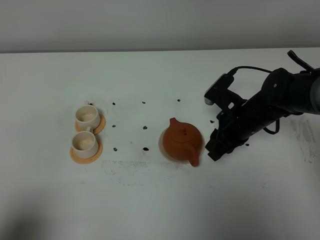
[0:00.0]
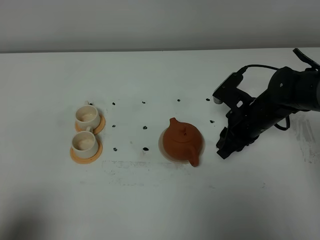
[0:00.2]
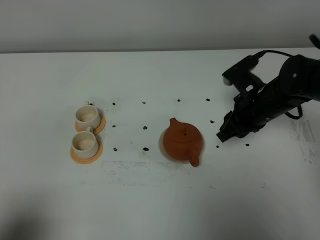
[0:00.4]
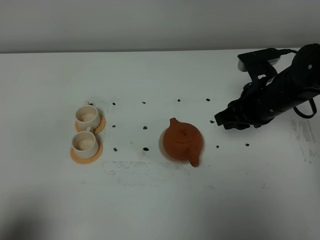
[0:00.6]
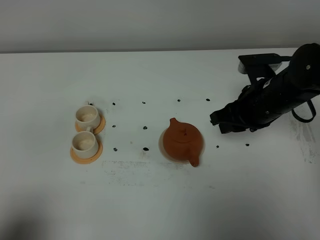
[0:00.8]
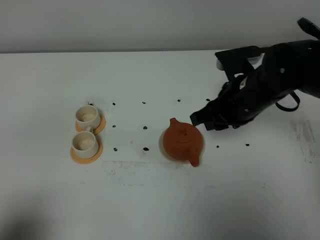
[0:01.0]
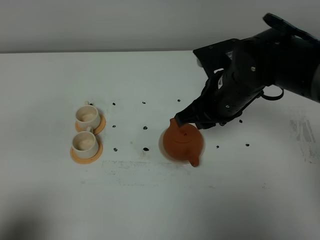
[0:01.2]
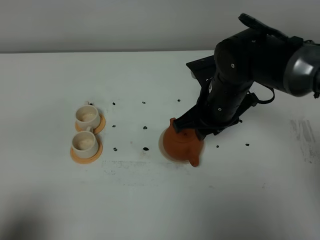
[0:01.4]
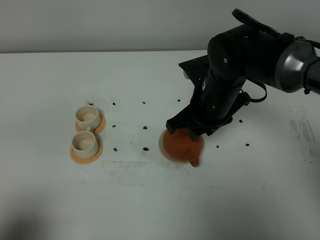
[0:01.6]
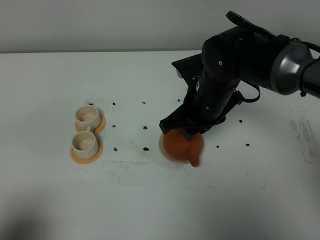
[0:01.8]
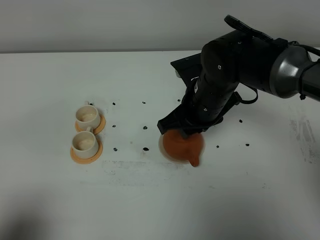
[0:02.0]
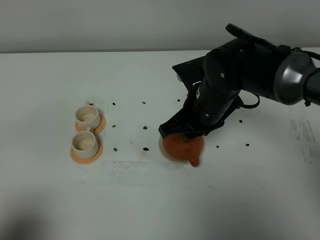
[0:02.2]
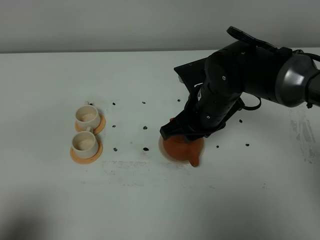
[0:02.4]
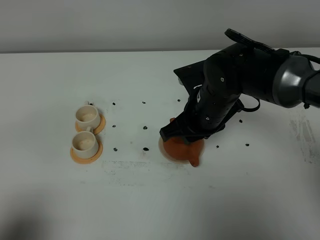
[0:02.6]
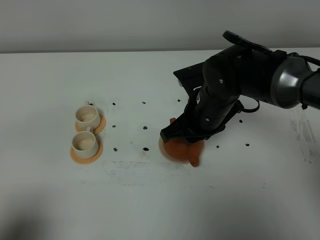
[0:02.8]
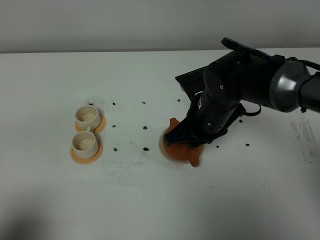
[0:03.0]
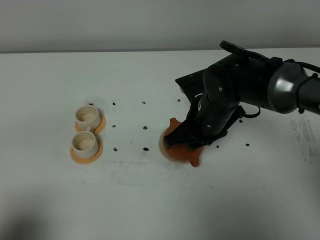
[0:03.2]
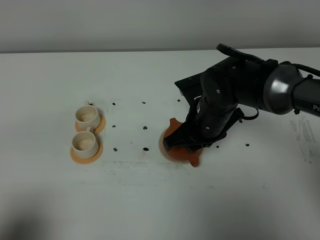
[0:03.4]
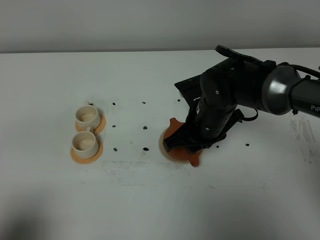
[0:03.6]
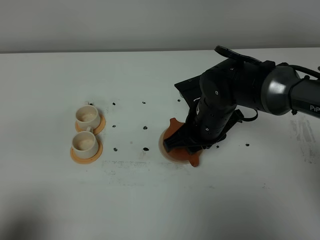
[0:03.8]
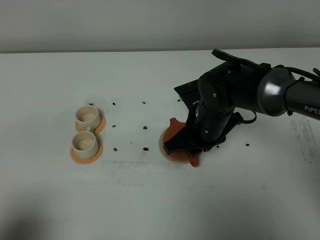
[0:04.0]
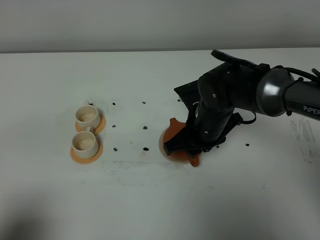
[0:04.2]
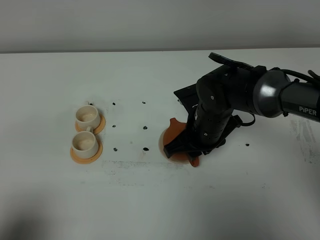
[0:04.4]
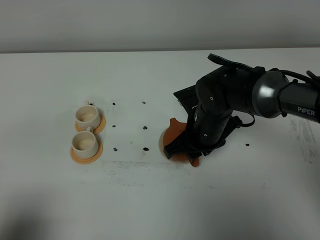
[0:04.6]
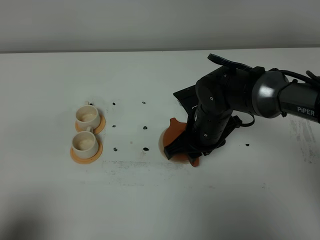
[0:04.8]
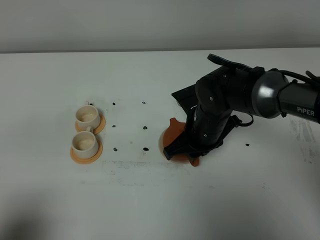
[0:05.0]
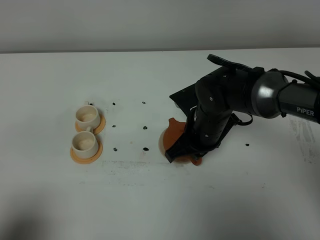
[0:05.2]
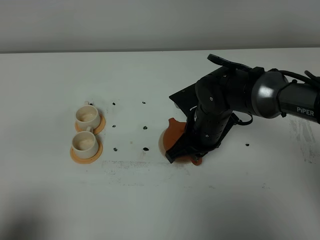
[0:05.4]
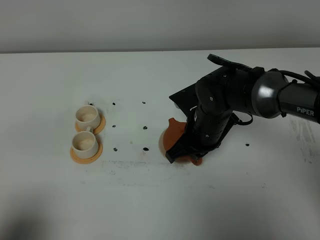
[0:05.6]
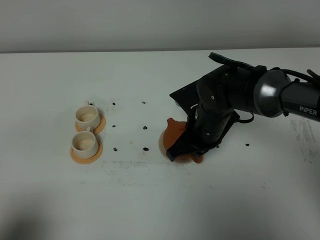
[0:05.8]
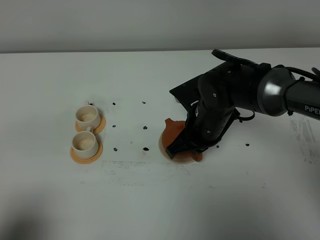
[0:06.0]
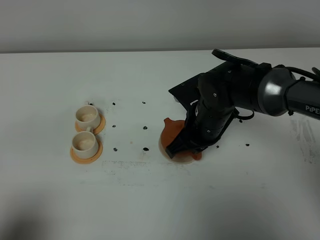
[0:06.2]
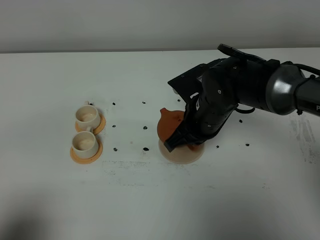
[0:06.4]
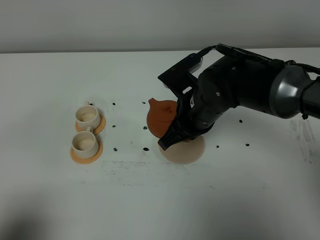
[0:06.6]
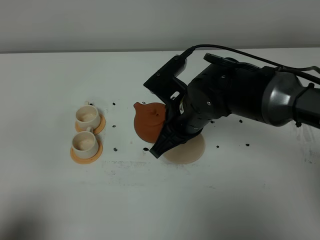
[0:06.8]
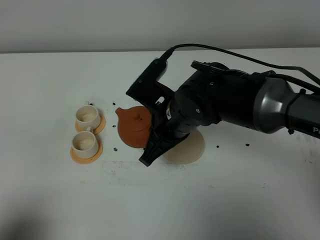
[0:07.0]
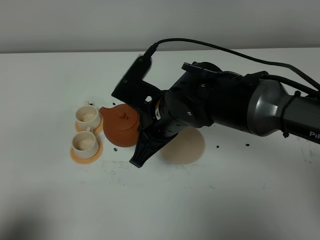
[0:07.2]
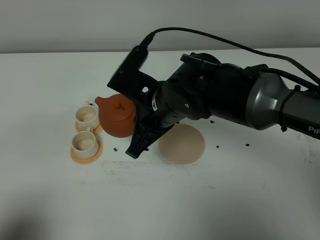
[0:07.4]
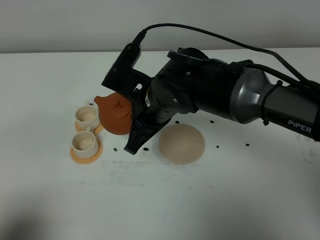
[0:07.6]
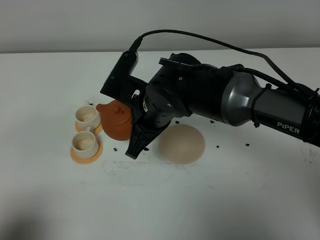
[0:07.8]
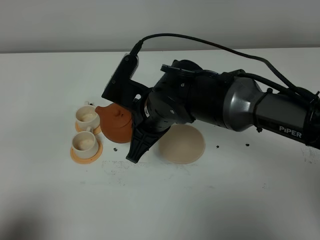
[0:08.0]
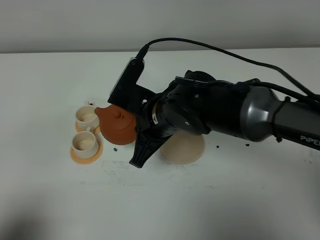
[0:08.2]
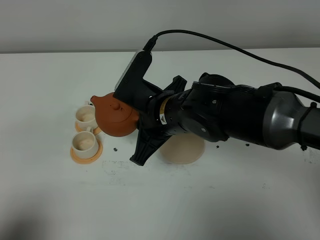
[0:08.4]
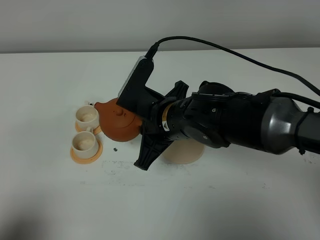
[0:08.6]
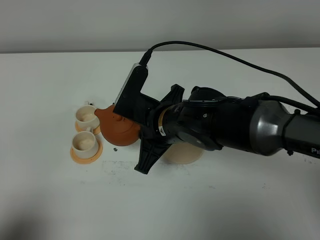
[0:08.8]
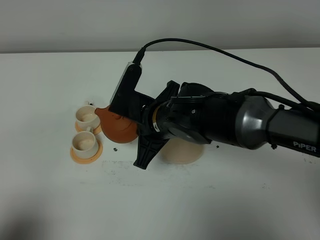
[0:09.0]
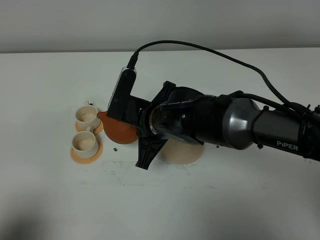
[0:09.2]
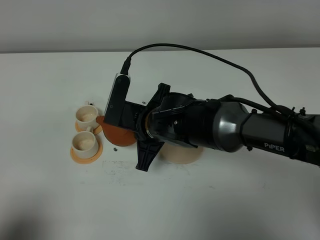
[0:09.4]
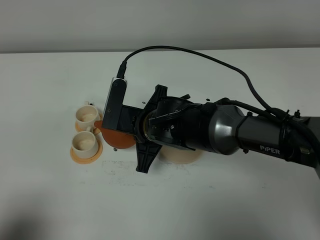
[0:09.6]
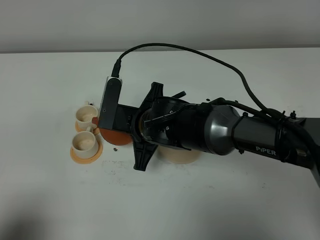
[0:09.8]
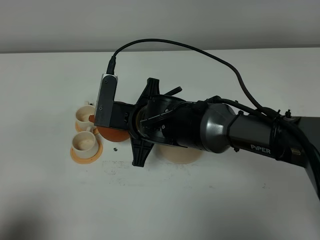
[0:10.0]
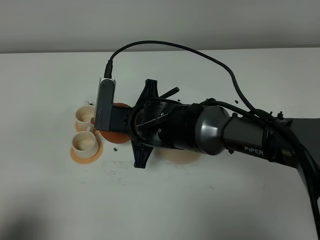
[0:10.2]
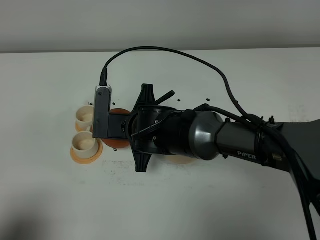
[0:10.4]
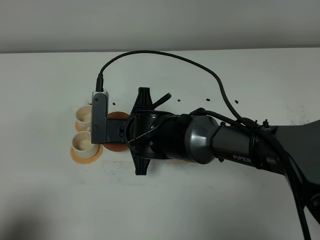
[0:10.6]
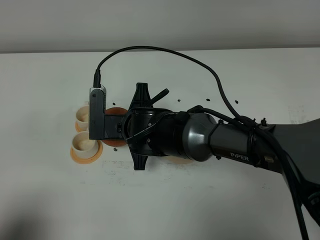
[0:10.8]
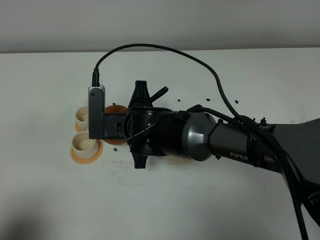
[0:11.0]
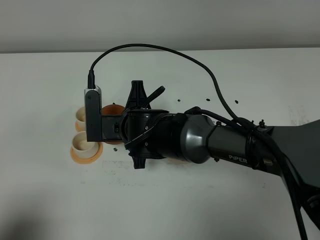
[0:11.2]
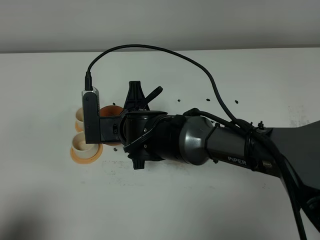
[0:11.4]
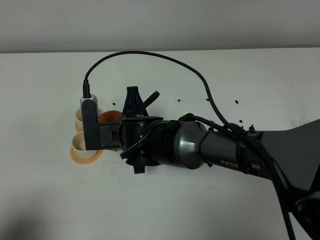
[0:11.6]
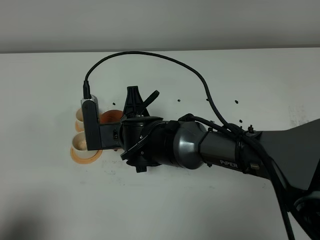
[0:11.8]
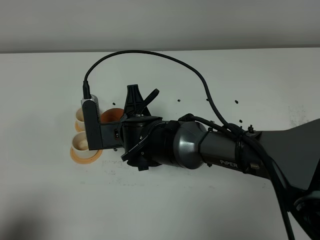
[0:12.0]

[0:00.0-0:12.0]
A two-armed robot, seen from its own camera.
Task of the whole recording: grasp the brown teapot and pour the tea into the two white teacups one by one, put the brown teapot back in its original place.
Step, 0:00.0 to 0:06.2: Pick up the teapot with the right gripper.
0:00.0 to 0:01.6: The right gripper shifts roughly 10 cm upward and to the left.
0:01.6 to 0:04.4: The grippers move only a little.
0:04.4 to 0:06.0: The right gripper closes.
0:06.0 to 0:07.6: The right gripper shifts approximately 10 cm to the left and upward.
0:10.4 to 0:12.0: There are only small adjustments of the grippers.

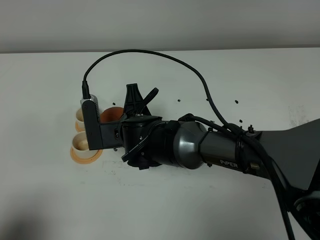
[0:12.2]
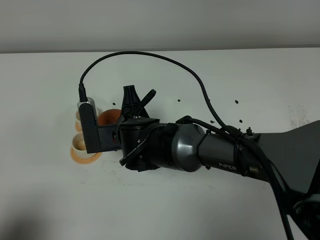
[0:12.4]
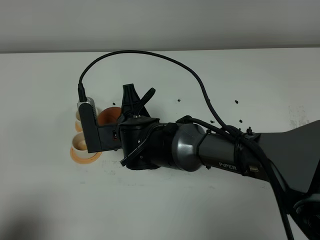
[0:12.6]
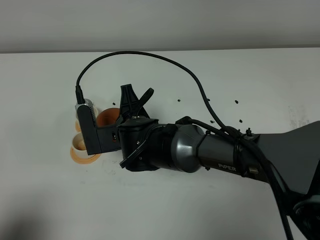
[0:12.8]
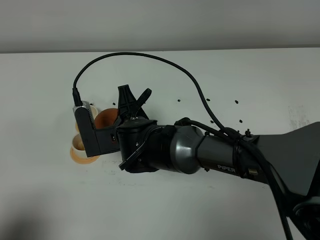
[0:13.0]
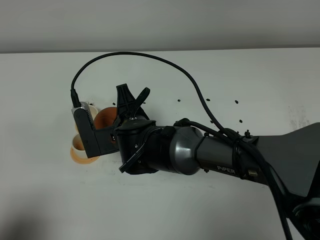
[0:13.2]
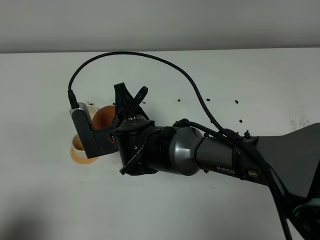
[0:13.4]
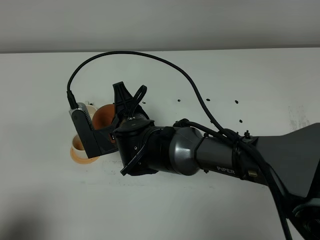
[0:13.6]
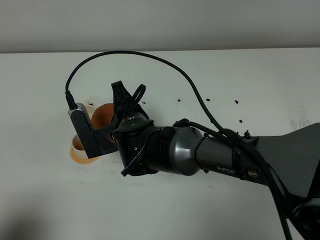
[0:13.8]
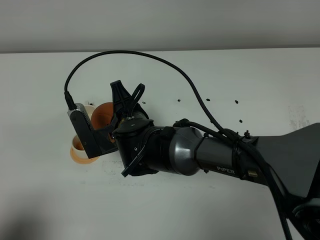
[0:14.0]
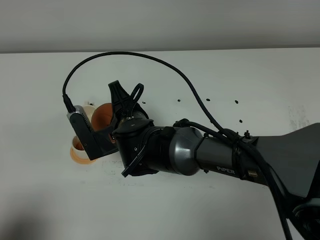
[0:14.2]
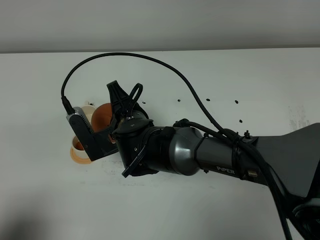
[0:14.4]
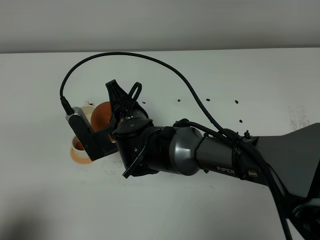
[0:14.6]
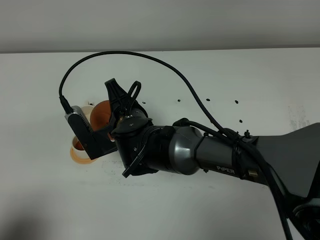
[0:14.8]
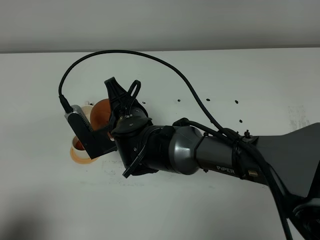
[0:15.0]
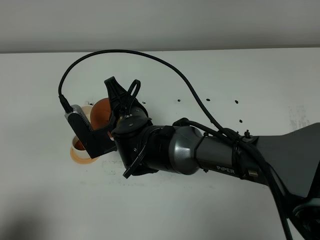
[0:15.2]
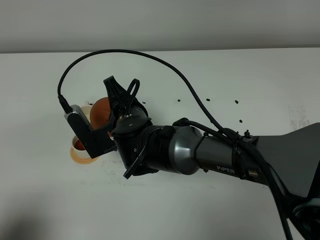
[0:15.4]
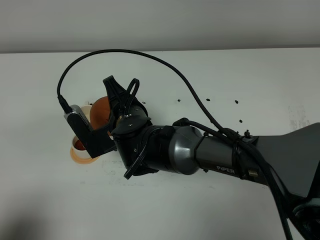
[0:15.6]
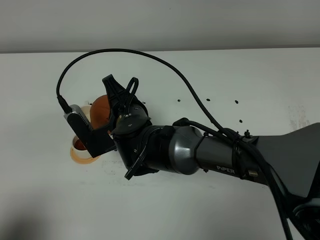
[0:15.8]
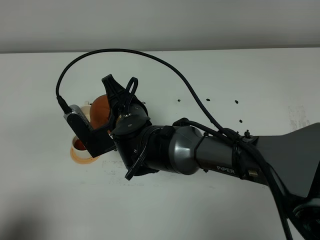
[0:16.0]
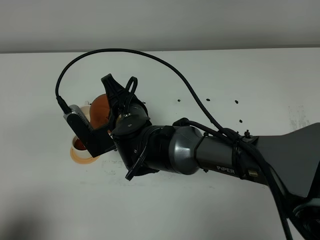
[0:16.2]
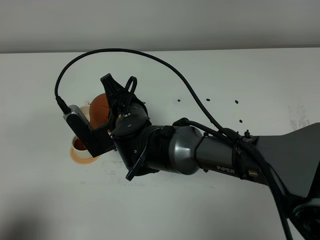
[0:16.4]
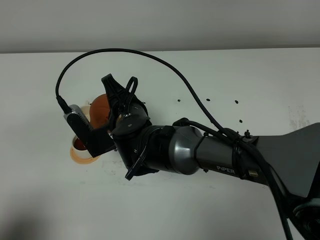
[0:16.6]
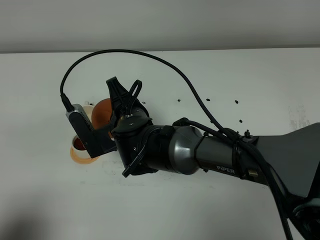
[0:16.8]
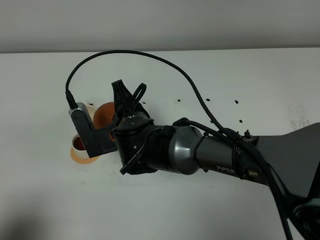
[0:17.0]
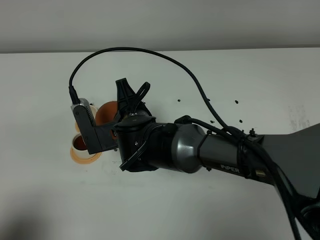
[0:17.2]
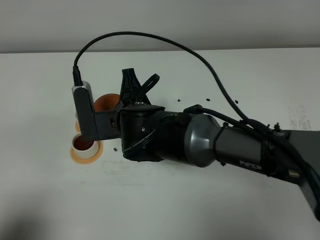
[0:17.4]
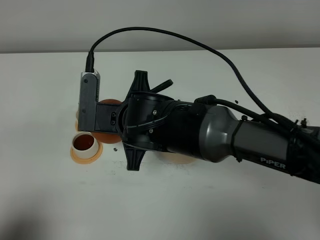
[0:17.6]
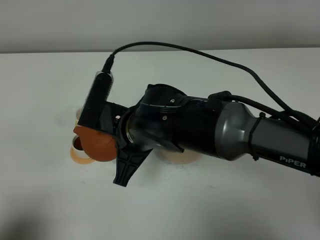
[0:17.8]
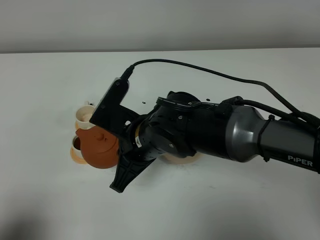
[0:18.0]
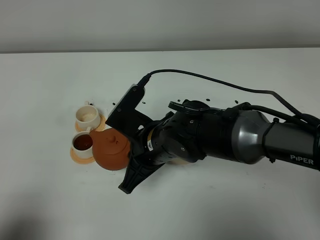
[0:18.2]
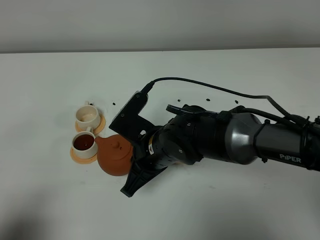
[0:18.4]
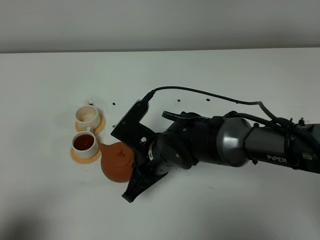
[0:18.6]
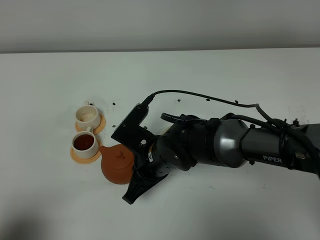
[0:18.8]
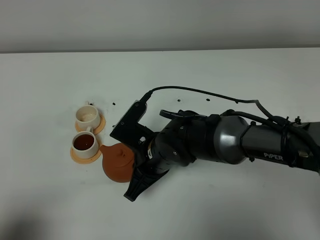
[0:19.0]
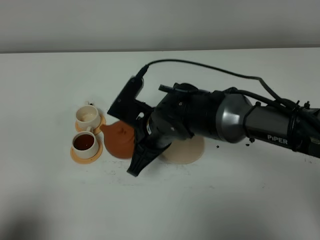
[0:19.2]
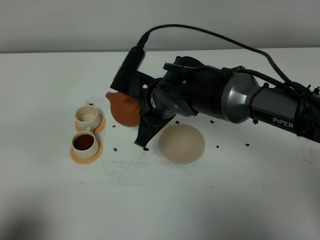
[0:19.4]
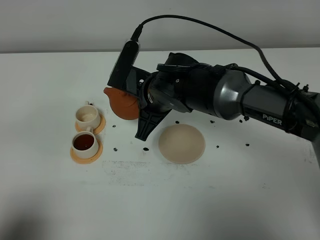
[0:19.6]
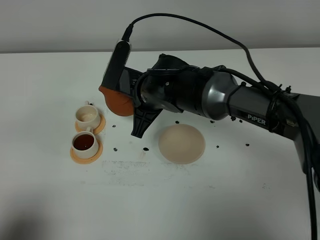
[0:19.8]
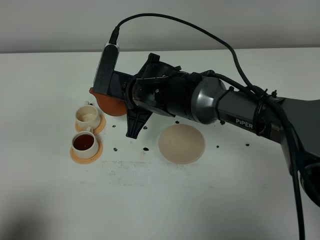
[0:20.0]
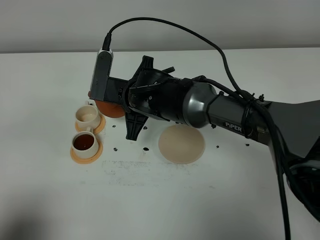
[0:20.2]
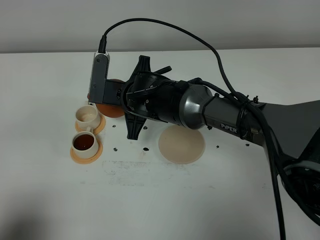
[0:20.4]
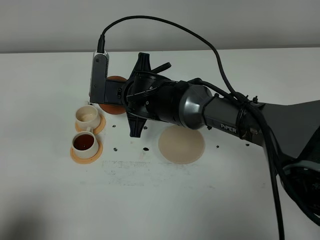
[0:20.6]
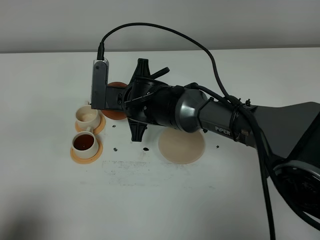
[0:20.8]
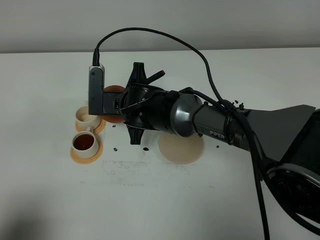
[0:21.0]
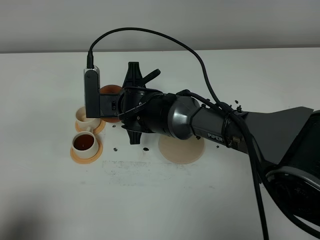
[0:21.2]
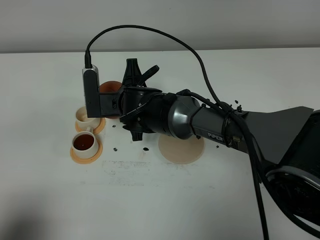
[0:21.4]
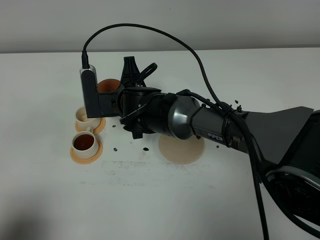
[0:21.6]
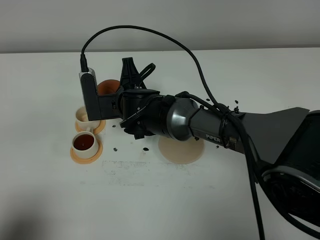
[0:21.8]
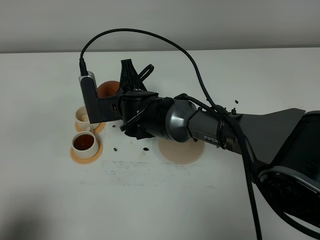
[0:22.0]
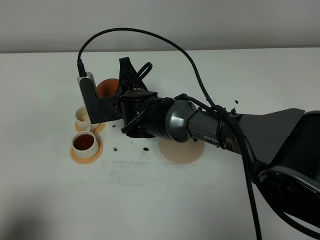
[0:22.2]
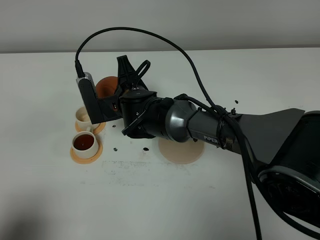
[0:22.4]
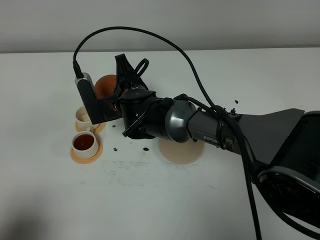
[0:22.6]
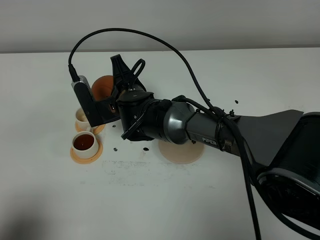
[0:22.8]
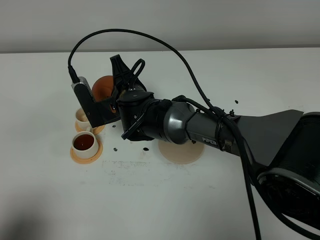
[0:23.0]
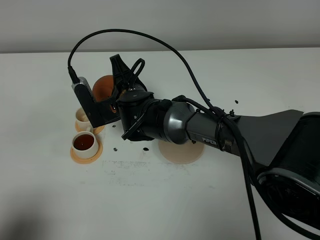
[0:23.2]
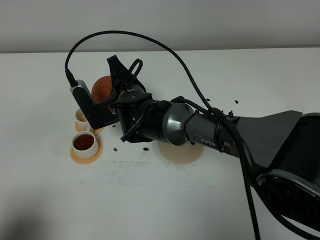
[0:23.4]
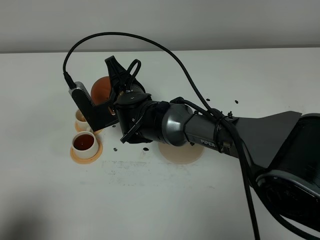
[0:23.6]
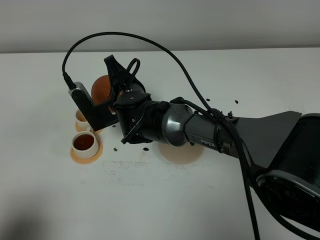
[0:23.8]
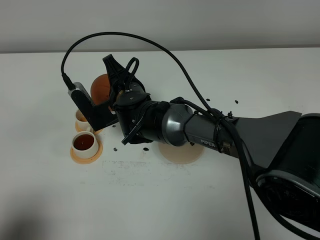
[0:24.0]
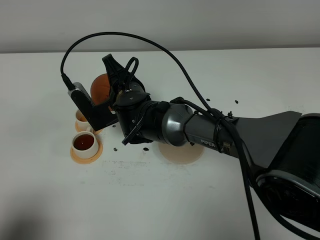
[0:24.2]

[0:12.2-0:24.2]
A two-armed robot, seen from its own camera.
Task of the whole recording: grasp the brown teapot and pour the tea into the two white teacups one by one, put the brown teapot back in its original place.
0:12.2 to 0:13.8: There are only small adjustments of the grippers.
0:13.8 to 0:15.2: The grippers move only a little.
0:15.2 to 0:16.6: Neither gripper changes place.
0:16.6 to 0:18.2: The right gripper changes place by roughly 5 cm.
0:18.2 to 0:19.8: The right gripper moves forward, about 10 cm.
0:19.8 to 0:21.2: The right gripper ends up some 5 cm from where it was.
0:22.6 to 0:24.2: The grippers stay close to where they were, moving slightly.
